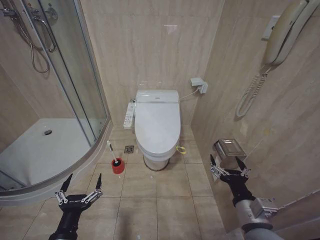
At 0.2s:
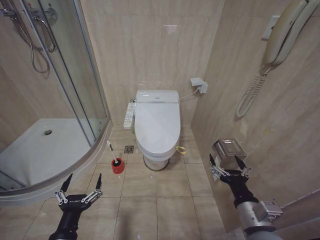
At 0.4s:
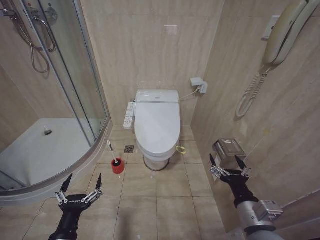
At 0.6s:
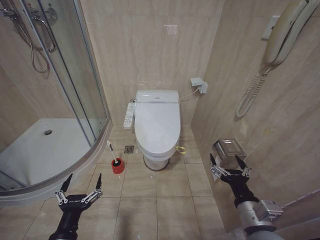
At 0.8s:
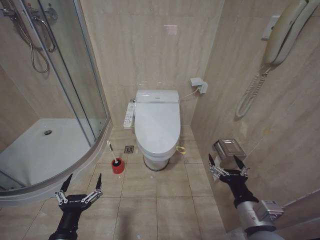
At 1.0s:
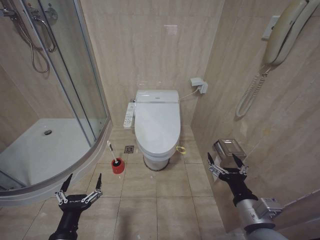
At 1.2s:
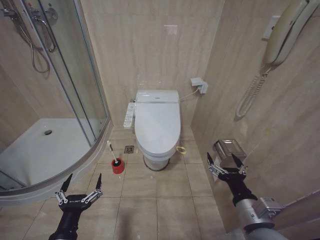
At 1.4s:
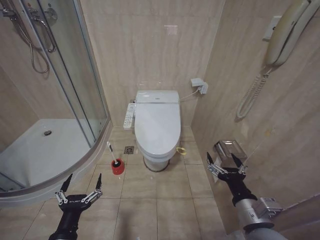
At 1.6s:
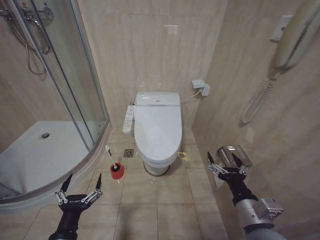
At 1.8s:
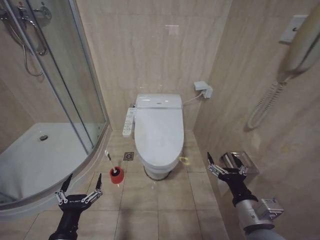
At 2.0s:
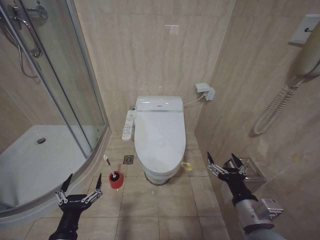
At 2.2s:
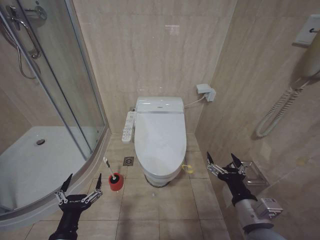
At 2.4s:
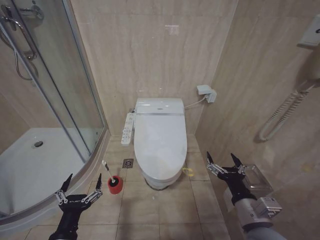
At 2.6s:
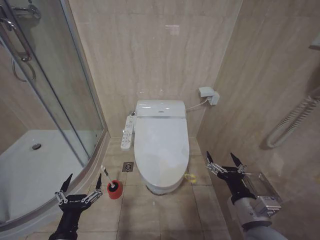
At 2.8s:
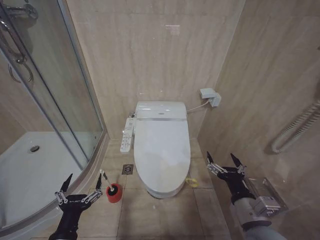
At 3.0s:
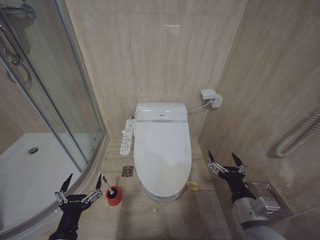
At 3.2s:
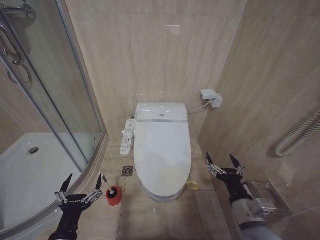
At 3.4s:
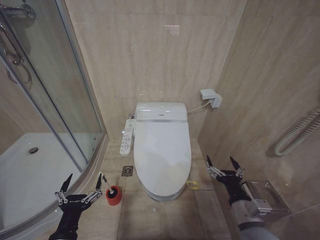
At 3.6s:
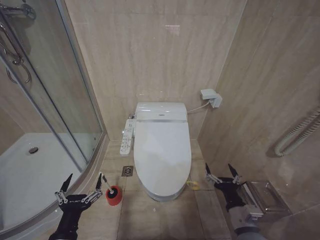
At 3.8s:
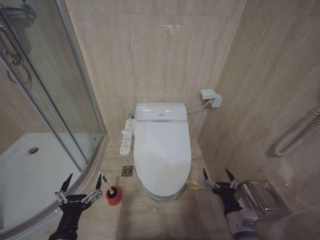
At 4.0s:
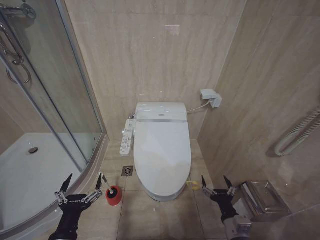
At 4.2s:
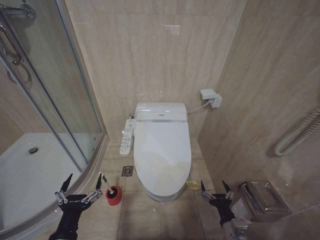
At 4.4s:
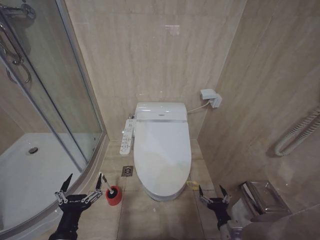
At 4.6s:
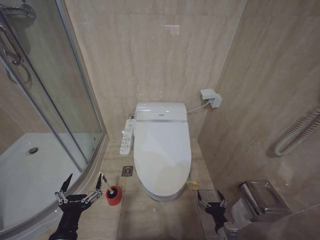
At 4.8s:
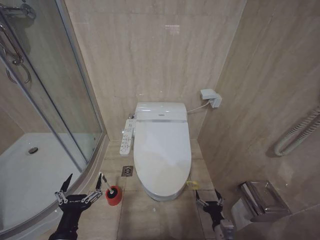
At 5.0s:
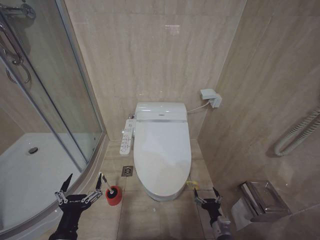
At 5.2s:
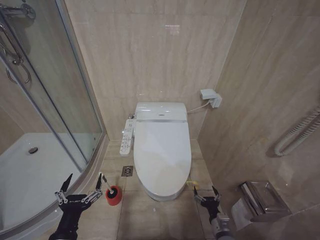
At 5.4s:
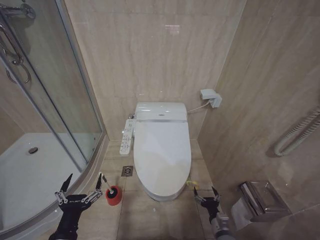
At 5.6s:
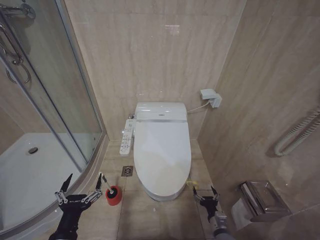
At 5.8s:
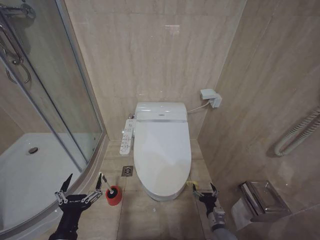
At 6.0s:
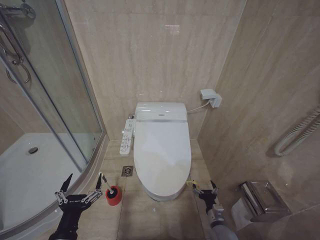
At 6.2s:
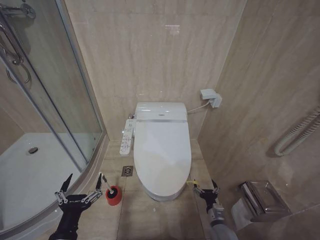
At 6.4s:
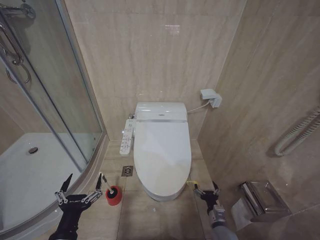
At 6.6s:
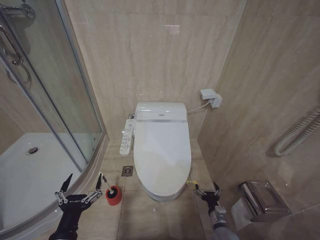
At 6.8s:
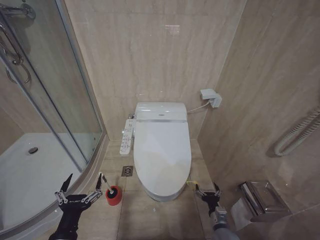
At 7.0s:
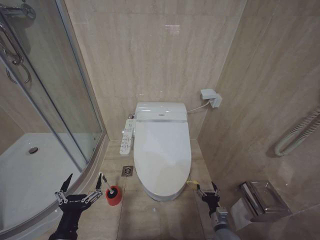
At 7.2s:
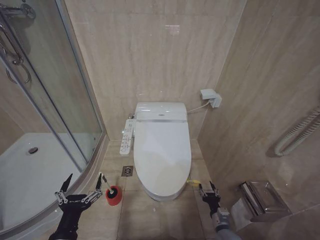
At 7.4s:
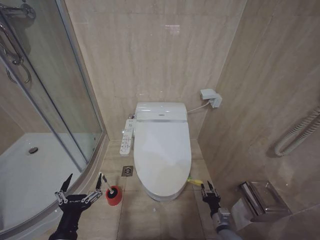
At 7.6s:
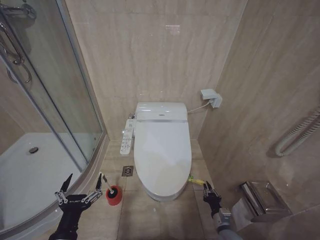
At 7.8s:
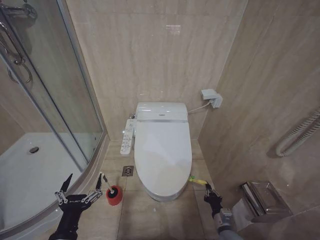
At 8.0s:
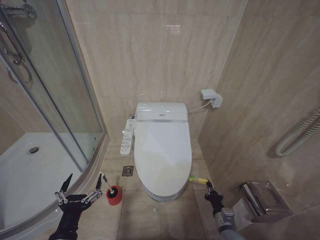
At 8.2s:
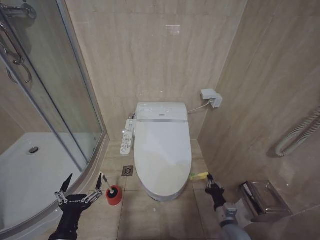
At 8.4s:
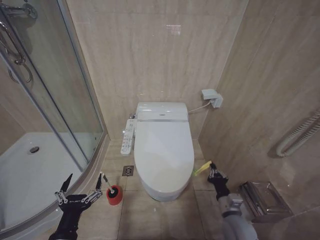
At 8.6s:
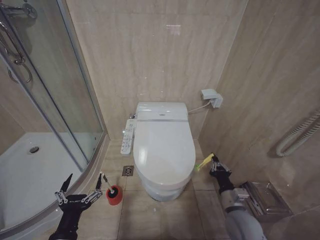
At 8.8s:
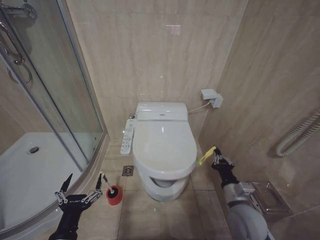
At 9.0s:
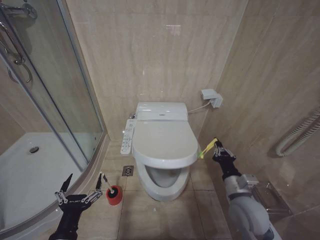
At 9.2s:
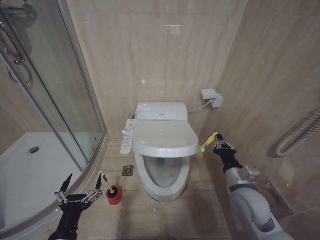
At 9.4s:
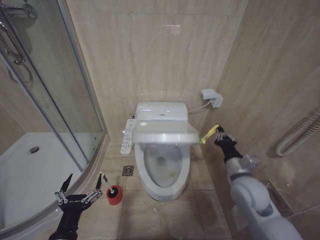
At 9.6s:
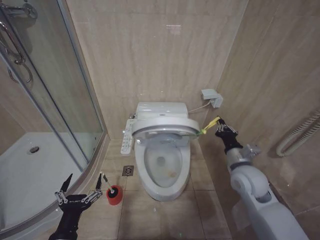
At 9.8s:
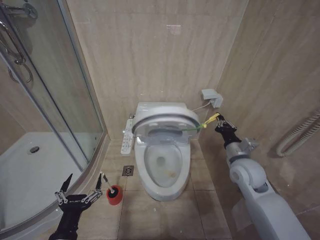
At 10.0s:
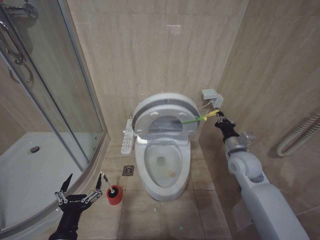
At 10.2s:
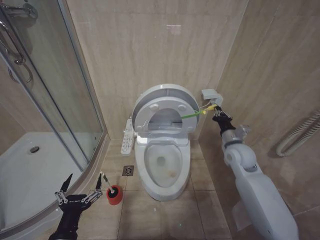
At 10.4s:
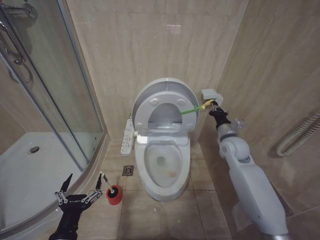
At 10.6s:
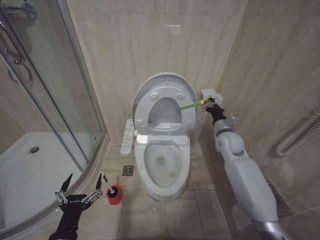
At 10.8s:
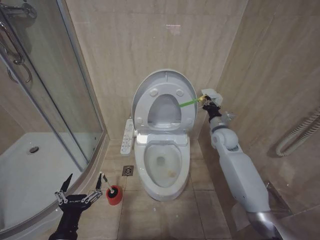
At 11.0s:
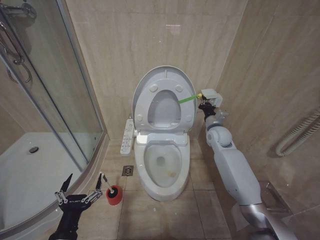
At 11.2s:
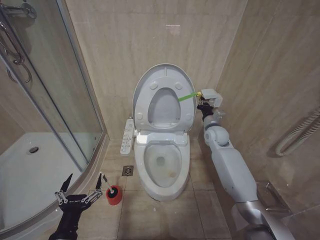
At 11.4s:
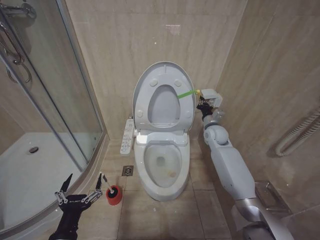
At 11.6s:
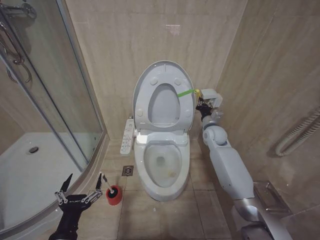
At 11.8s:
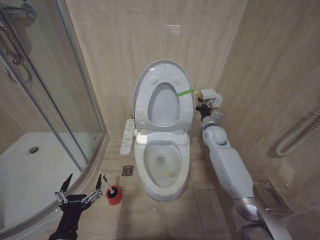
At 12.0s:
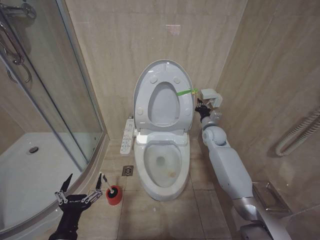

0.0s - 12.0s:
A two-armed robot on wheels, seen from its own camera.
Task of the whole recording: Open the toilet lid, clean the toilet bowl with a toilet brush, close the toilet lid, and flush.
3.0s - 4.4s: The right gripper shifts some 15 cm downward.
4.4s - 6.0s: The right gripper shifts roughly 10 cm downward and forward.
6.0s - 7.6s: The right gripper closes its fingers.
7.6s - 9.0s: The right gripper shifts some 25 cm upward.
9.0s - 10.4s: The right gripper goes about 20 cm forward and upward.
10.4s - 12.0s: The right gripper heads forward, covering some 10 cm.

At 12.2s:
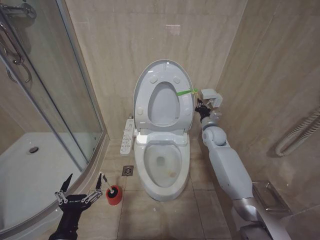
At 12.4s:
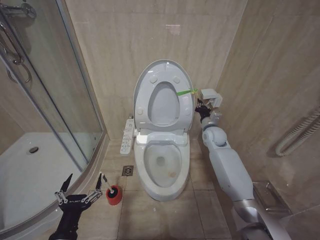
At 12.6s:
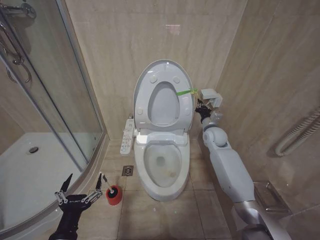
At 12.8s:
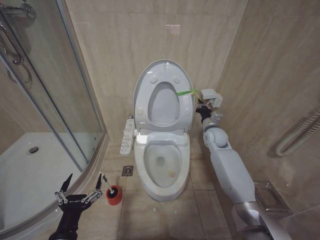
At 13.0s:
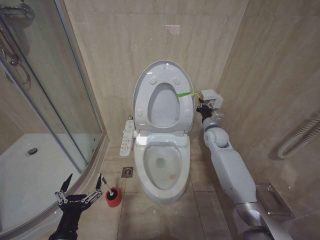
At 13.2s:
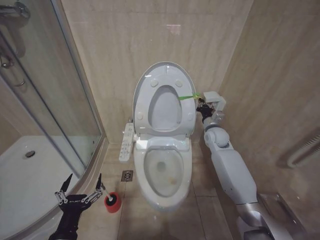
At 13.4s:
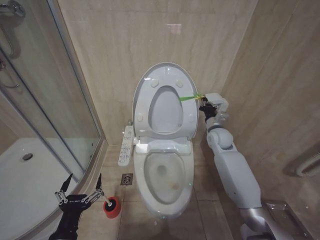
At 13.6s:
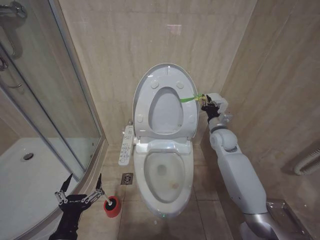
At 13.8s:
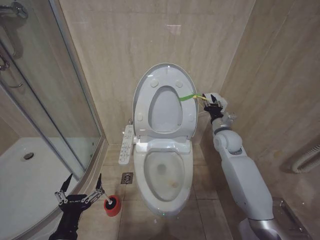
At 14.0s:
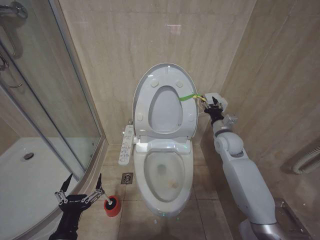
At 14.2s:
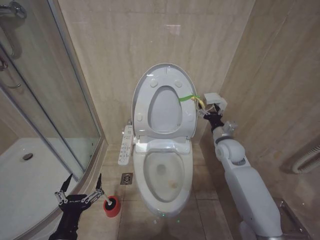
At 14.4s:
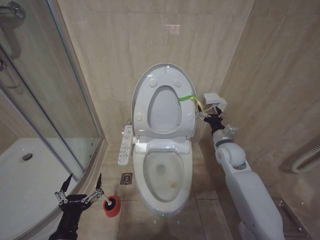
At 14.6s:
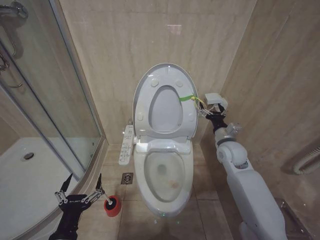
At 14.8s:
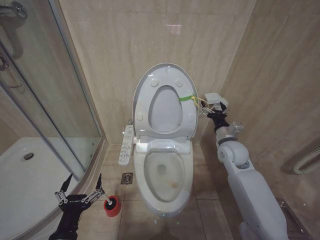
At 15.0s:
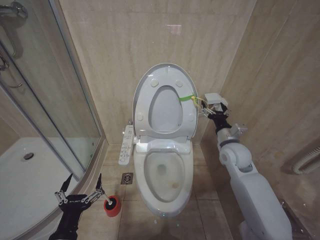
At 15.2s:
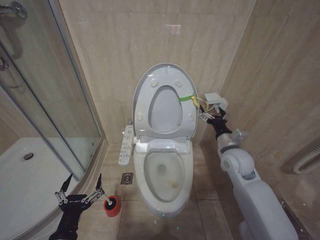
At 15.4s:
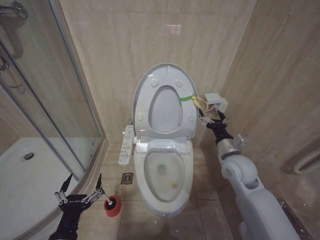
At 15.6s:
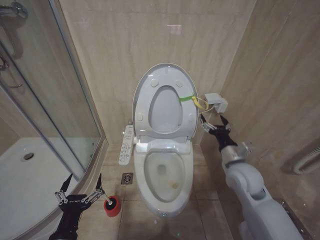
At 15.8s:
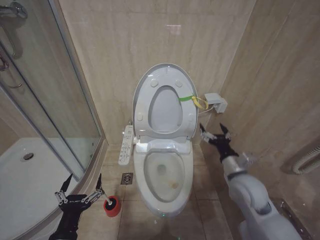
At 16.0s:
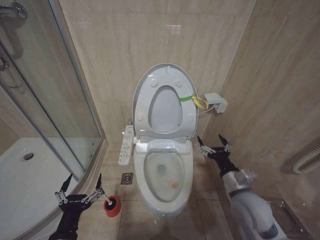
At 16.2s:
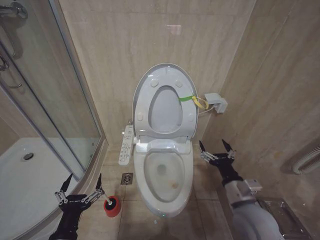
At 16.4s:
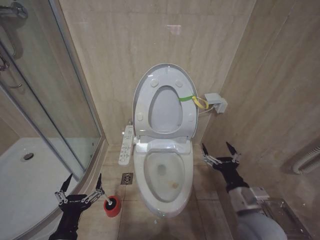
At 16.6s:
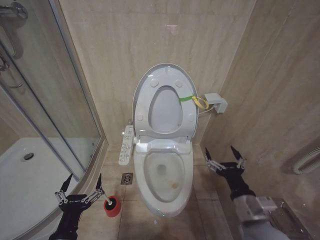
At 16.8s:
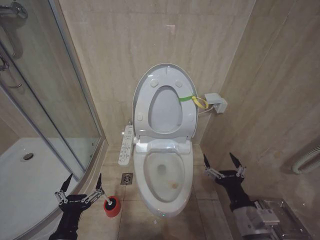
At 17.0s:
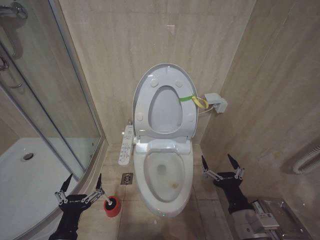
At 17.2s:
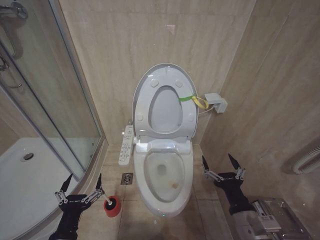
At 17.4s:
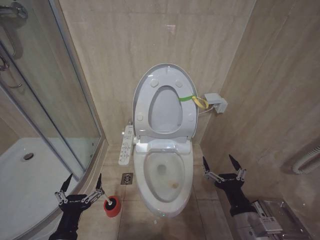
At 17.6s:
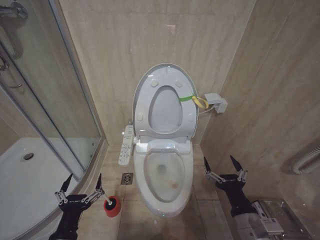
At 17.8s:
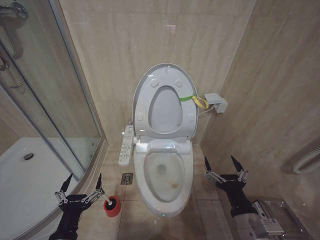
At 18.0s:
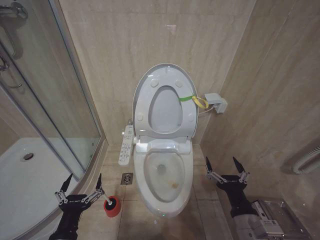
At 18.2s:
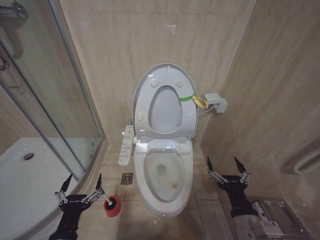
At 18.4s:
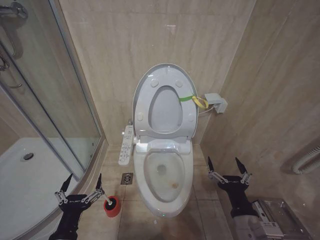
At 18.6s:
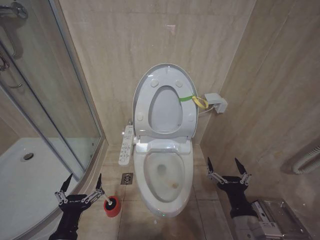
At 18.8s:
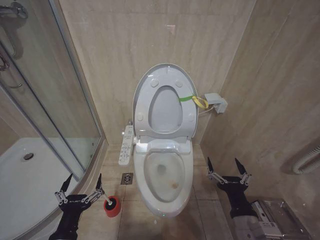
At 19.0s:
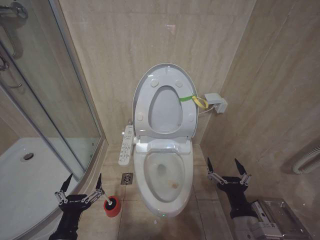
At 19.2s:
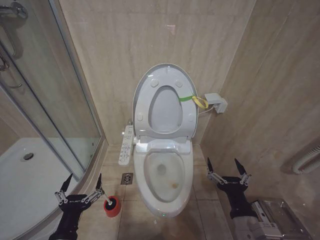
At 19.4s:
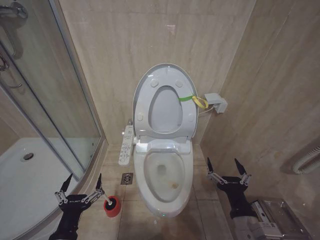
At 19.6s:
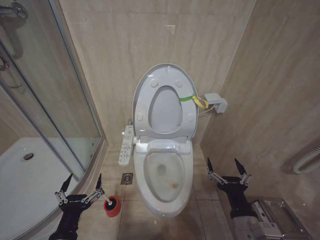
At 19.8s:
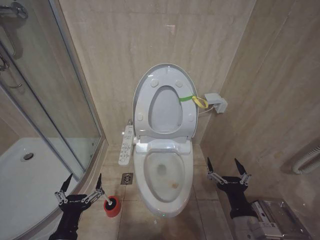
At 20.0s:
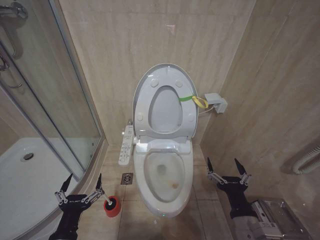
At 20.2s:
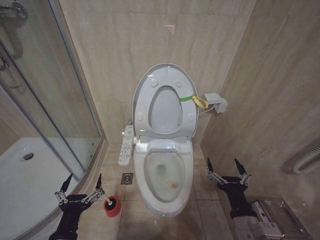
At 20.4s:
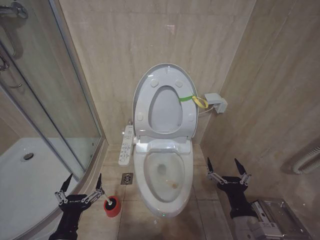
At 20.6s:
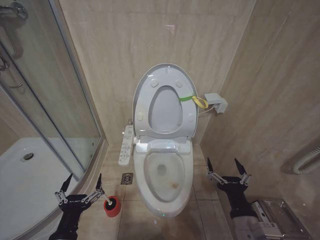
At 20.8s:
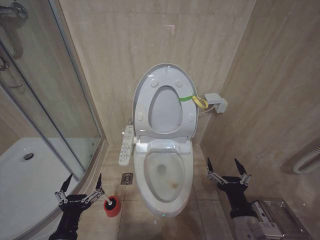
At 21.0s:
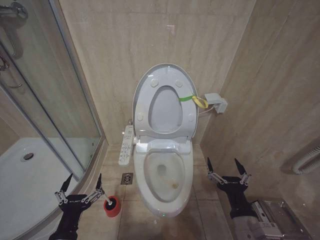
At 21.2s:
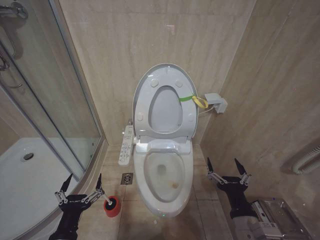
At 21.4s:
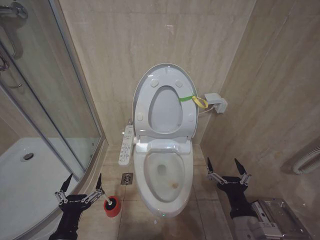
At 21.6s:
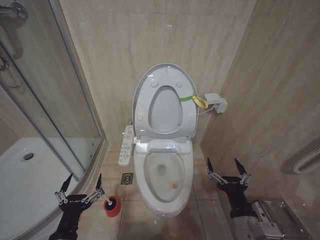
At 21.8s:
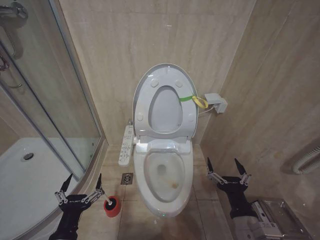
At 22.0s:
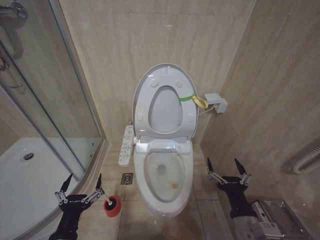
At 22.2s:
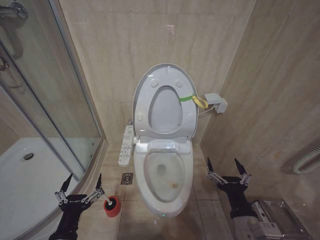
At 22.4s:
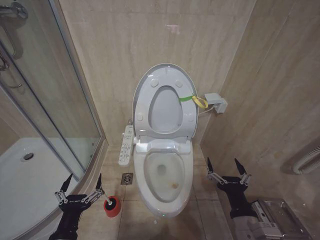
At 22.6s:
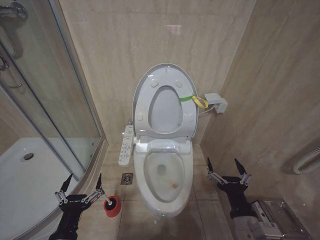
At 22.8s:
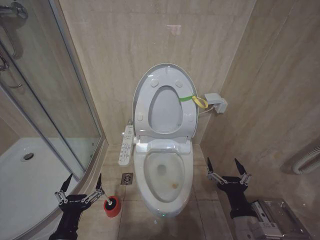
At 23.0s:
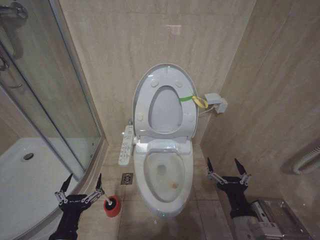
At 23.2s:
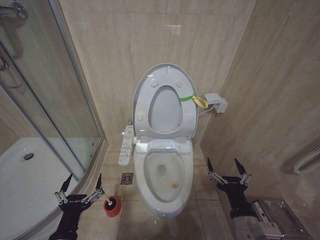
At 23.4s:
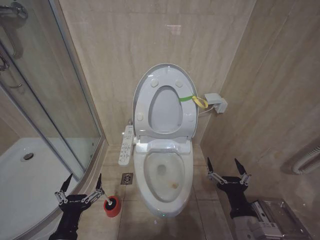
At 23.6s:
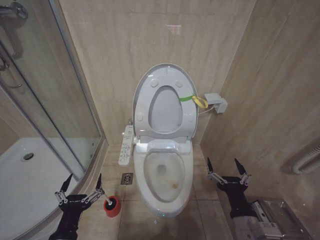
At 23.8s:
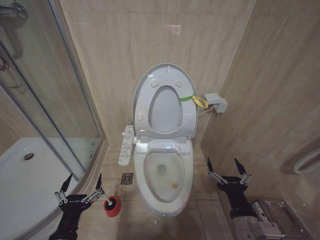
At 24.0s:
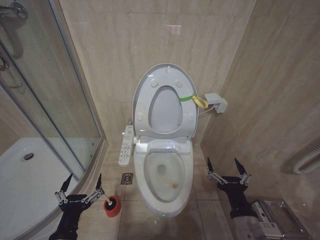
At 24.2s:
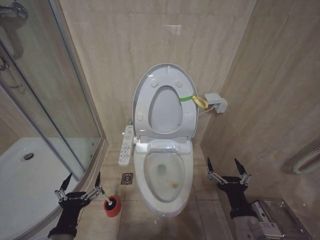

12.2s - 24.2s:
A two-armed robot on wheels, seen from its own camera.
Task of the whole recording: Open the toilet lid, clean the toilet bowl with a toilet brush, close the toilet lid, and flush.
12.2s - 13.8s: The right gripper shifts about 5 cm backward.
13.8s - 15.2s: The right gripper moves backward, about 10 cm, and opens its fingers.
15.2s - 16.6s: The right gripper goes about 20 cm backward.
16.6s - 18.2s: The grippers move only a little.
18.2s - 24.2s: The two grippers keep their place.
